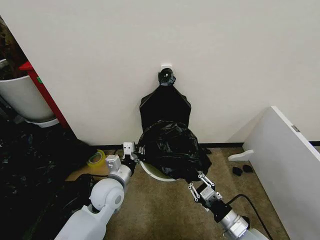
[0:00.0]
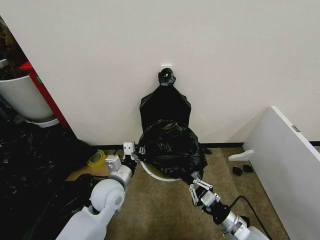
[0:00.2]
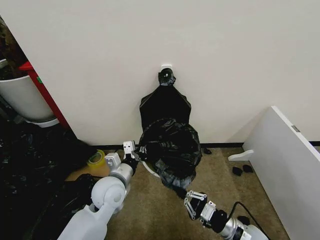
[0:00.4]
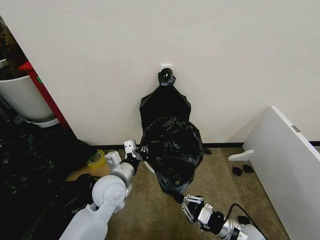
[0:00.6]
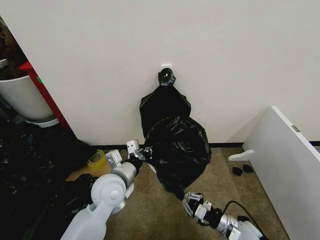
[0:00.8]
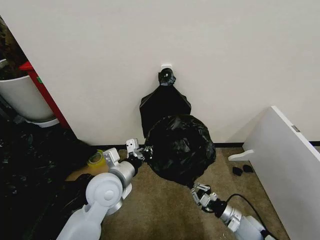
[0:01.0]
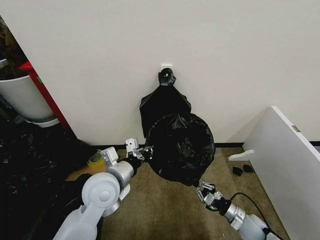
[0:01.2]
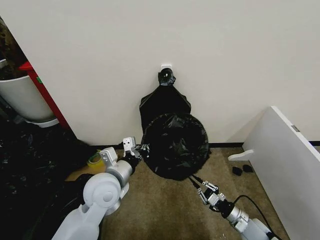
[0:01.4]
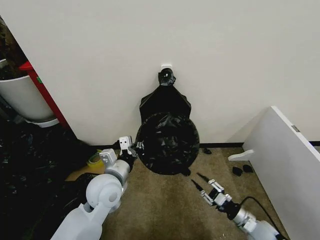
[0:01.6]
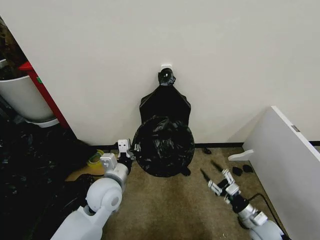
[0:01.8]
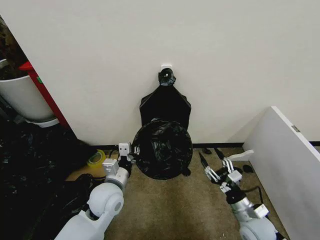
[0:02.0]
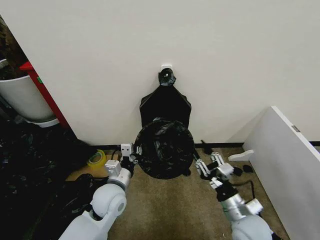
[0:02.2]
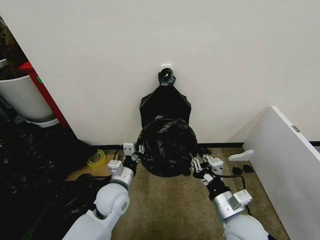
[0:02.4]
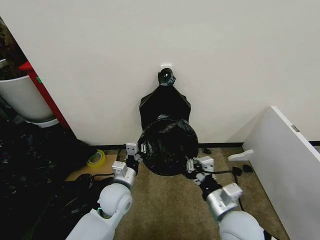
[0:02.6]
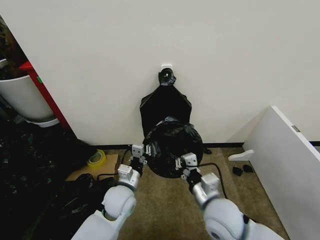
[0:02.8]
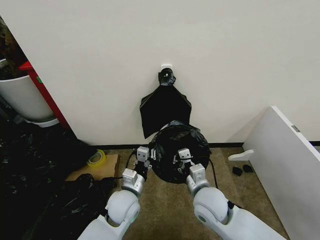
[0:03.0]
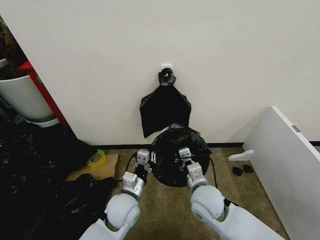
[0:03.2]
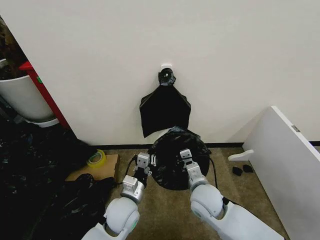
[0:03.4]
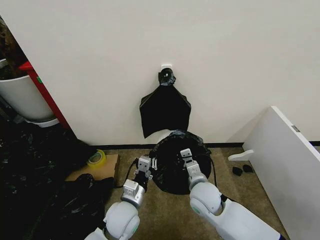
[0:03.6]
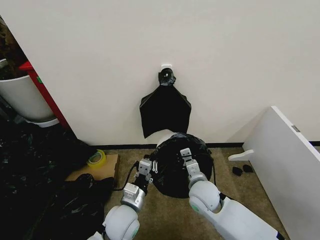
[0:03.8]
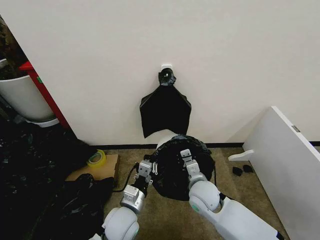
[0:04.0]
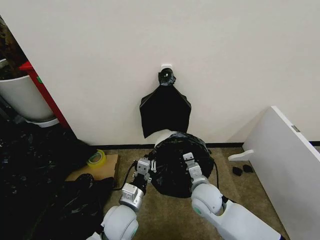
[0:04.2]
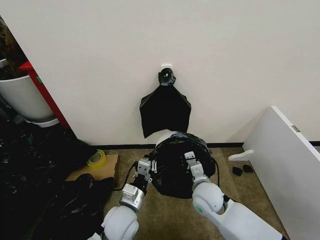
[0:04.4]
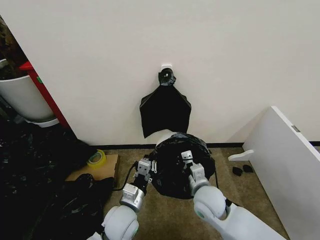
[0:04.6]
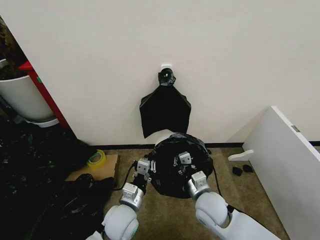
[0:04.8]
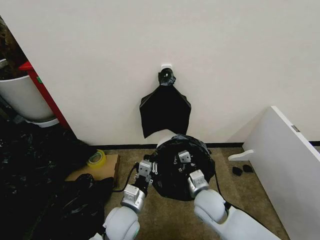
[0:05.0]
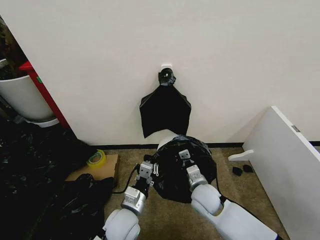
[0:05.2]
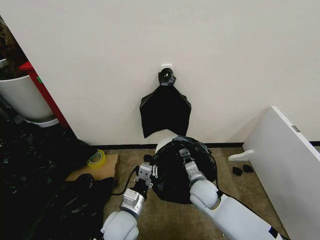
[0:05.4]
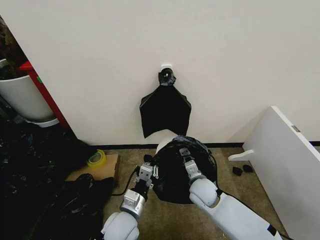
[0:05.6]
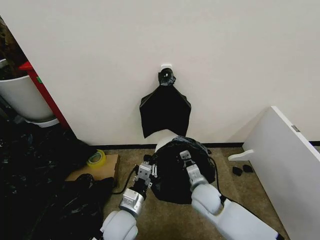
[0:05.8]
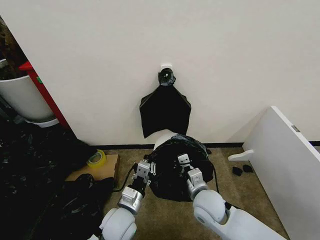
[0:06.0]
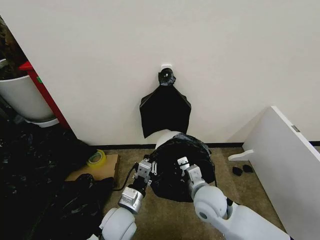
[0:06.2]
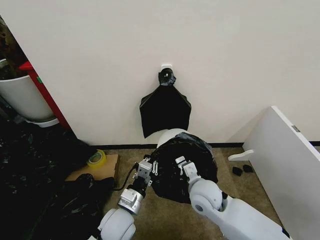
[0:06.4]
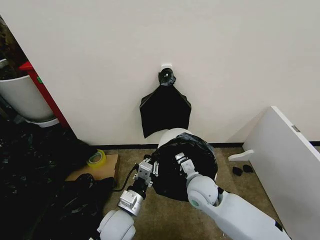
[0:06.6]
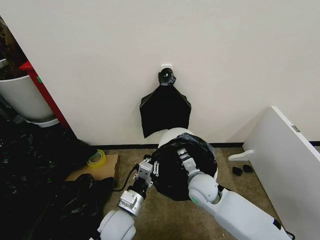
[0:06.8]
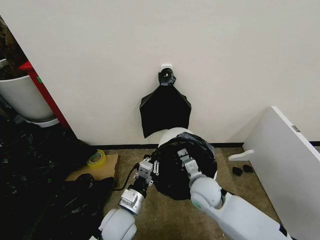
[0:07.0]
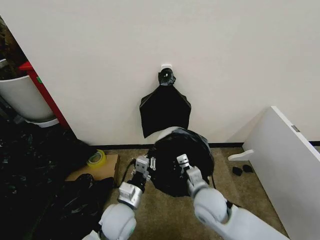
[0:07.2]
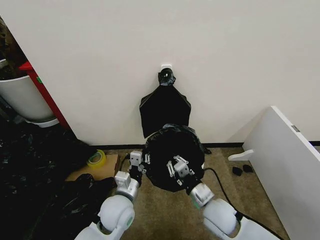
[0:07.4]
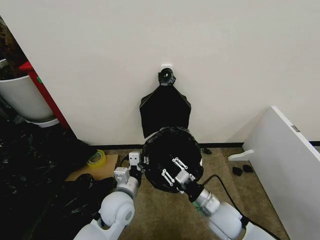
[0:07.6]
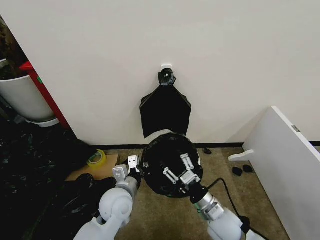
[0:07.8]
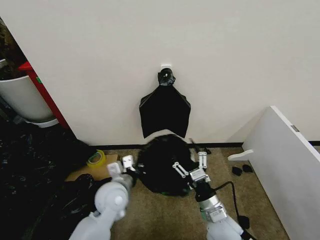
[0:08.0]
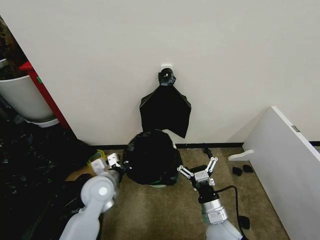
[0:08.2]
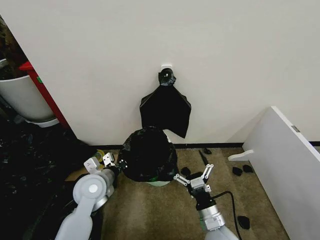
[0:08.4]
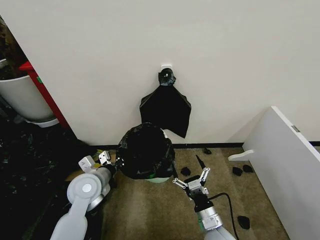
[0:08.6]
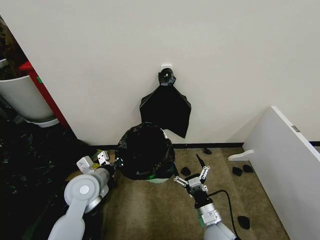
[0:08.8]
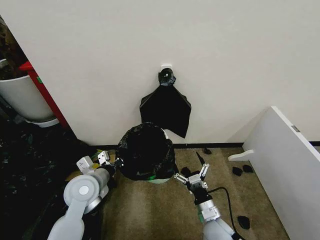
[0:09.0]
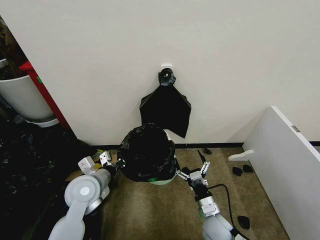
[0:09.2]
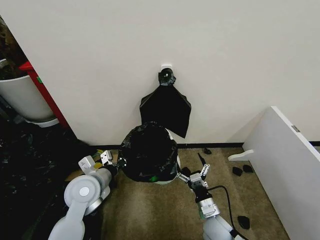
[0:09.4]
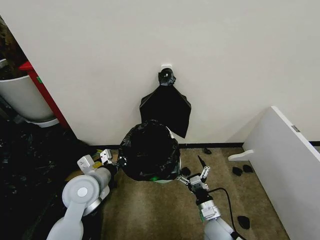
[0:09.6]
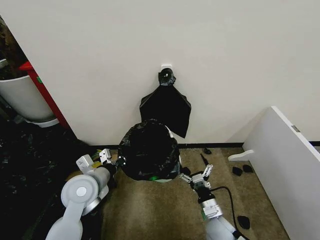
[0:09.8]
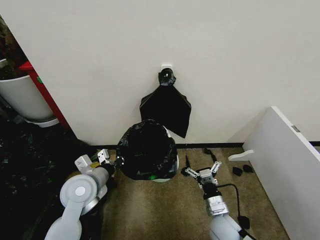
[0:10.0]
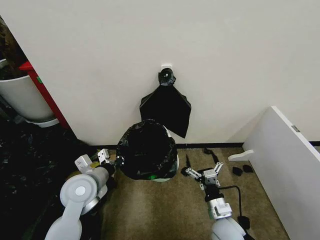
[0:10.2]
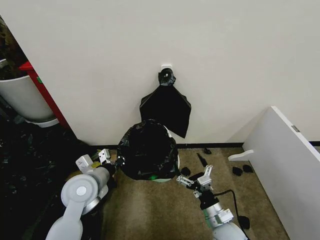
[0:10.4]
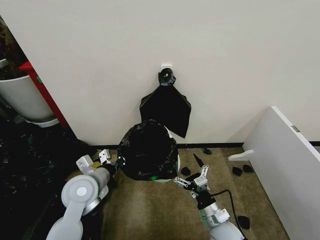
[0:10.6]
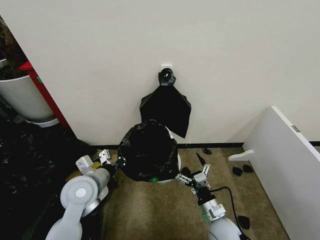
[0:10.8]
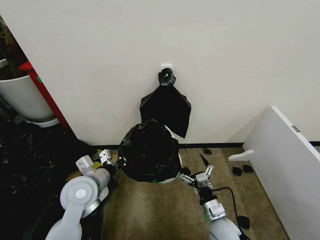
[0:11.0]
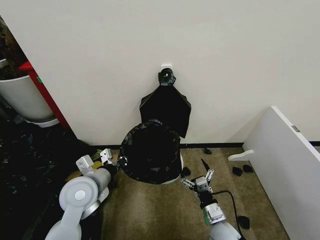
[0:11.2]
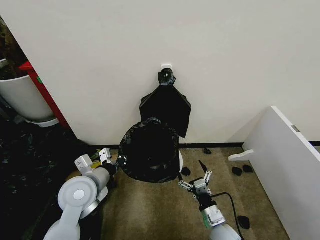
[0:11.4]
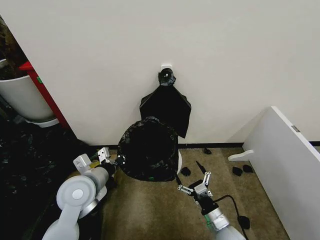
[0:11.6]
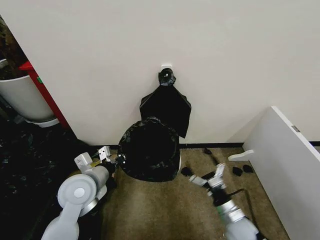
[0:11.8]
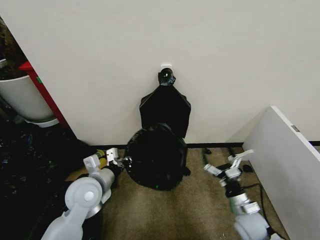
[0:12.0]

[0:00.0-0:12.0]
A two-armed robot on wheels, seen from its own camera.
Task of the whole recording: Place the garbage bag over the trash bin.
0:00.0 to 0:01.6: The right gripper is displaced downward, to the right and forward by some 15 cm.
0:01.6 to 0:03.0: The right gripper heads to the left and upward, covering roughly 30 cm. The left gripper goes roughly 10 cm downward.
0:03.0 to 0:04.4: The right gripper ends up about 5 cm from where it was, while the left gripper travels backward by approximately 5 cm.
0:06.0 to 0:07.6: The left gripper ends up roughly 5 cm from where it was, while the right gripper changes place by roughly 5 cm.
0:07.6 to 0:09.0: The right gripper moves downward, about 5 cm, and opens its fingers. Meanwhile the left gripper heads to the left, covering roughly 10 cm.
0:09.0 to 0:10.4: The grippers make only small movements.
0:10.4 to 0:12.0: The right gripper is displaced to the right by roughly 10 cm.

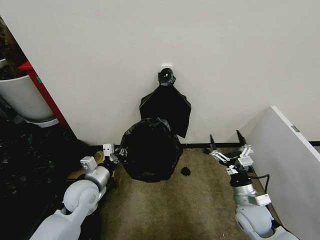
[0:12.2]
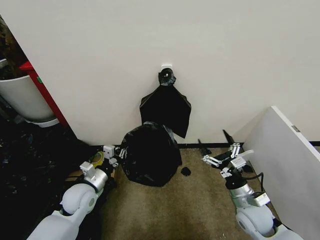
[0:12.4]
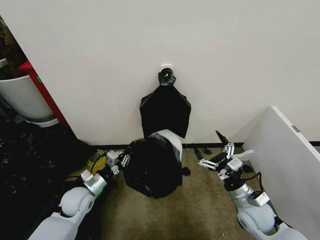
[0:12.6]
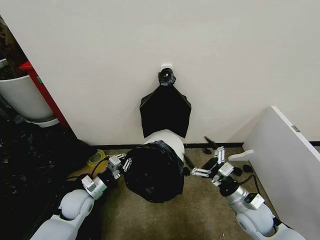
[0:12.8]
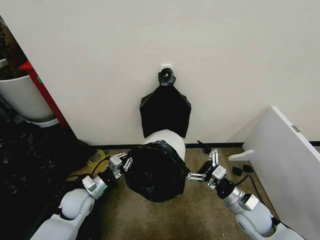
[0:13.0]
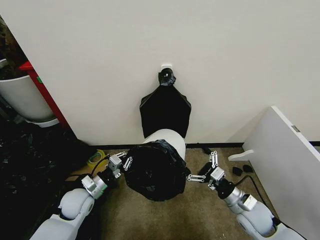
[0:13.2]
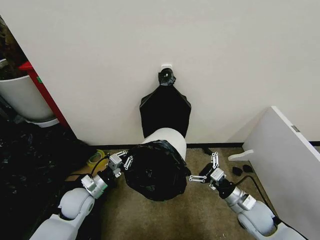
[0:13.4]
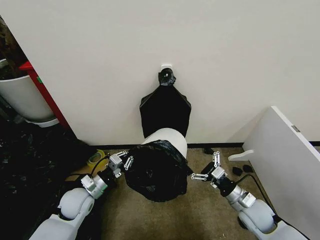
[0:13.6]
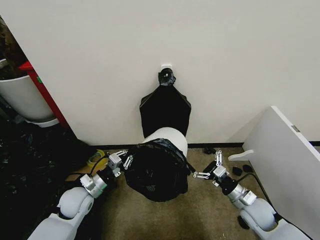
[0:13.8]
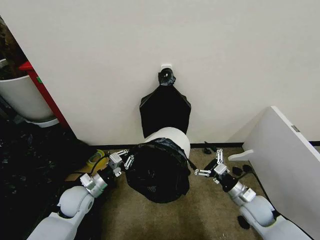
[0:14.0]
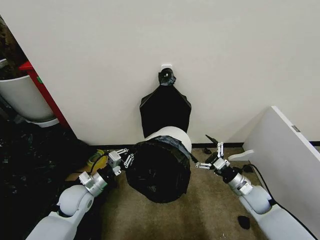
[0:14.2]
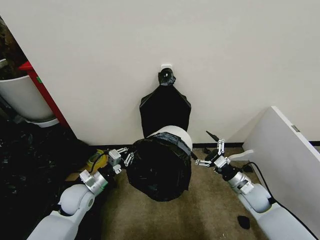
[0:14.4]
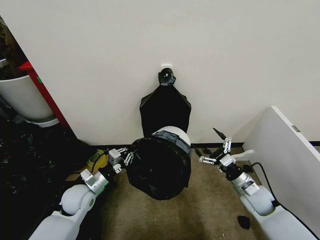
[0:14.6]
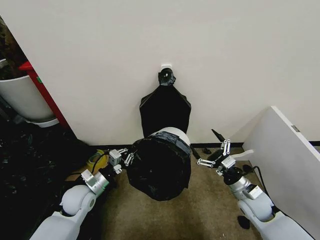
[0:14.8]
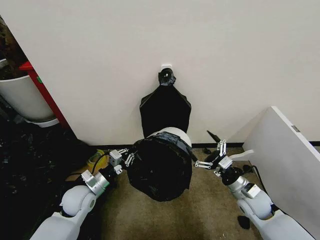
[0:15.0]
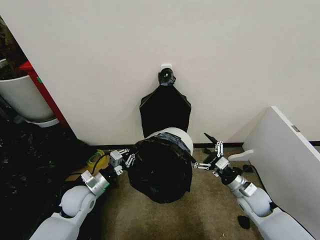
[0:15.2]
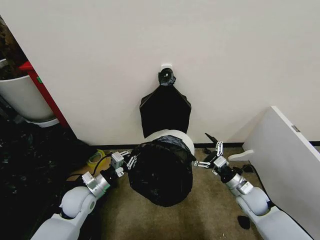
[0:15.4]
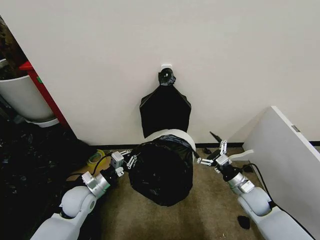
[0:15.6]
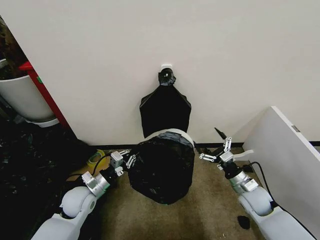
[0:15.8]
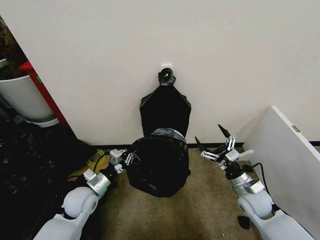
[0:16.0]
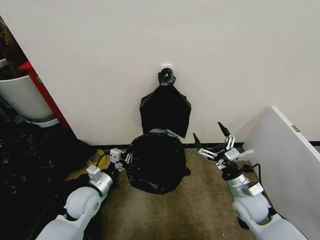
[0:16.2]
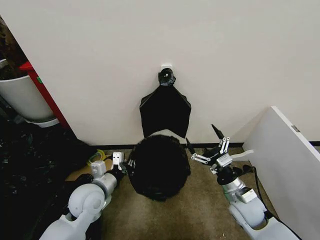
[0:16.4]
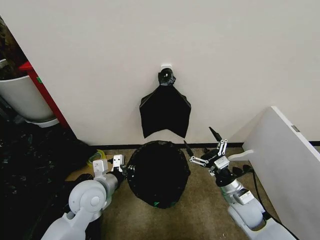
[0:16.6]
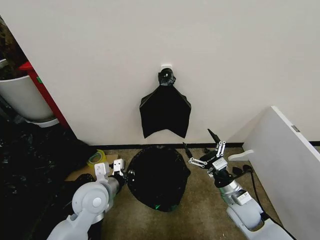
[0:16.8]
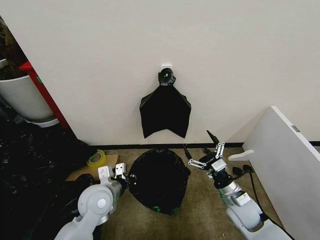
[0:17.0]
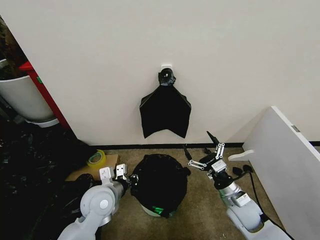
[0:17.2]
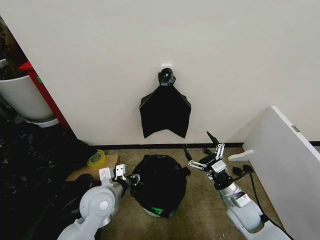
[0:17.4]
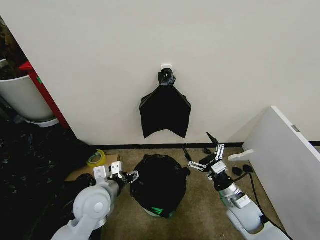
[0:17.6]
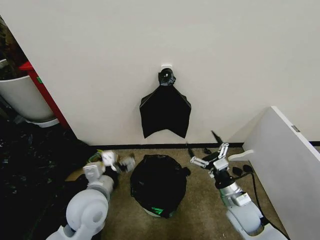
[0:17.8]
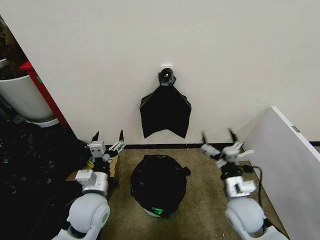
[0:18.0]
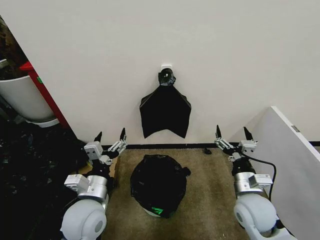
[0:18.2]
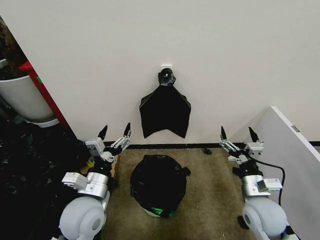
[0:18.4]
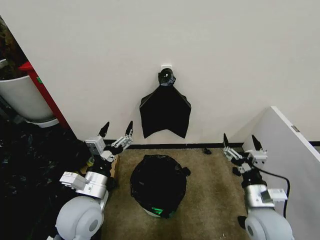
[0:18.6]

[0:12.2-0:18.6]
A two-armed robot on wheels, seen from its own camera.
Task of the whole recording: Place the garbage bag over the trash bin.
0:12.2 to 0:13.8: The left gripper moves downward, approximately 5 cm.
0:13.8 to 0:15.4: The grippers make only small movements.
0:15.4 to 0:17.0: The left gripper goes about 10 cm to the right and upward; the right gripper is displaced to the left by some 5 cm.
0:17.0 to 0:18.6: The left gripper shifts some 10 cm backward and upward, and opens up. The right gripper moves upward and backward, roughly 10 cm.

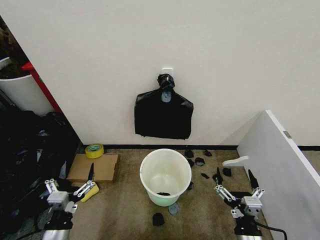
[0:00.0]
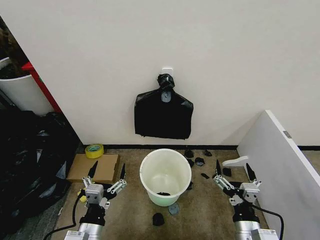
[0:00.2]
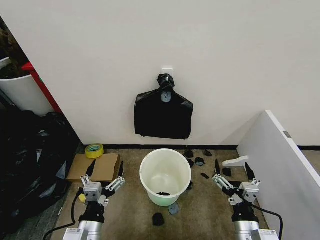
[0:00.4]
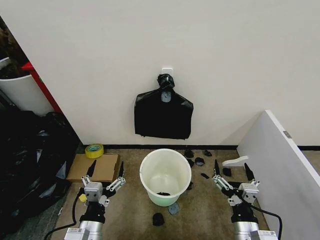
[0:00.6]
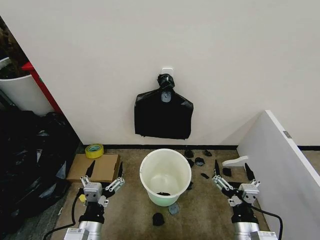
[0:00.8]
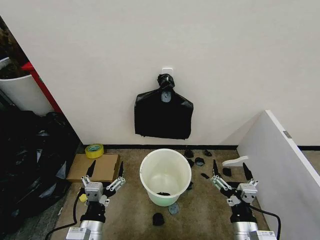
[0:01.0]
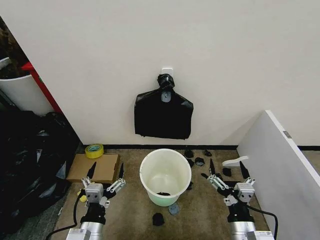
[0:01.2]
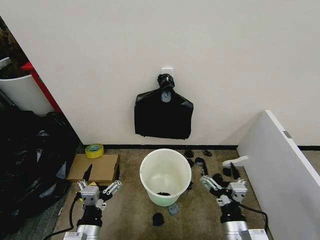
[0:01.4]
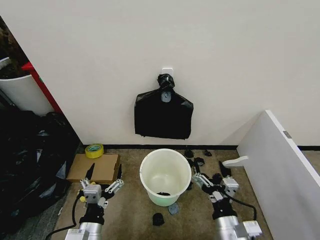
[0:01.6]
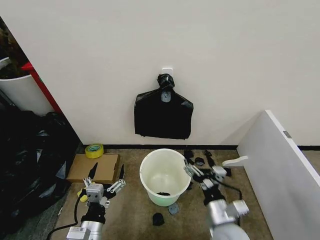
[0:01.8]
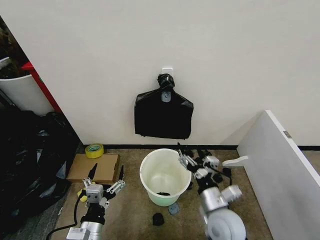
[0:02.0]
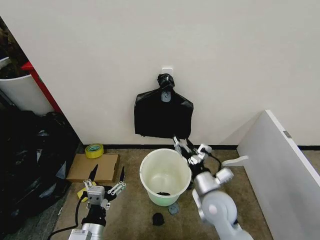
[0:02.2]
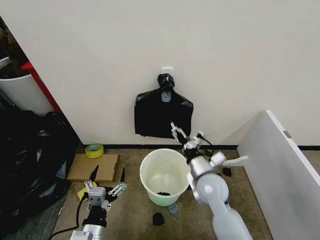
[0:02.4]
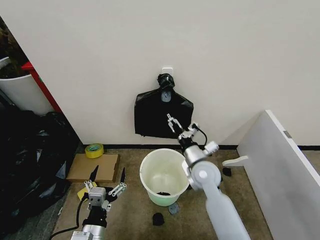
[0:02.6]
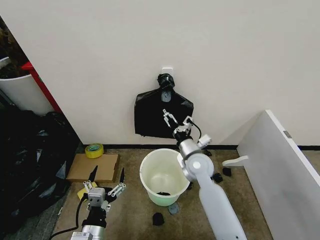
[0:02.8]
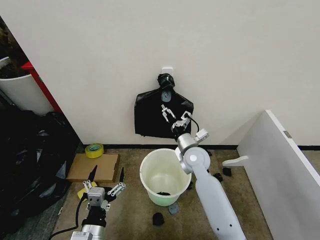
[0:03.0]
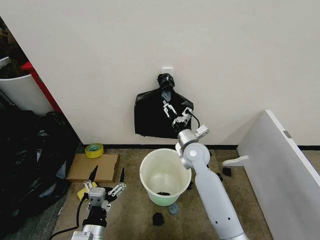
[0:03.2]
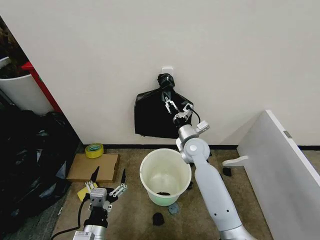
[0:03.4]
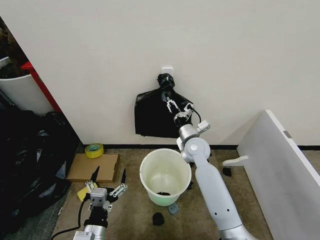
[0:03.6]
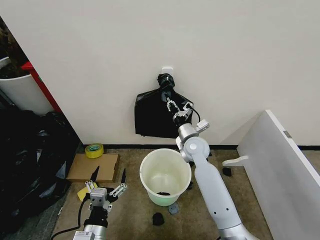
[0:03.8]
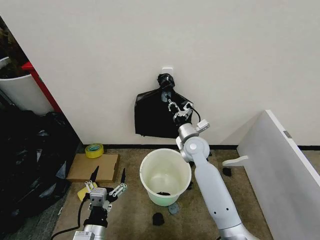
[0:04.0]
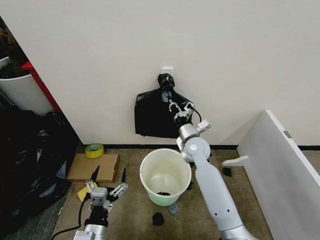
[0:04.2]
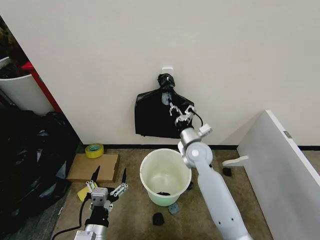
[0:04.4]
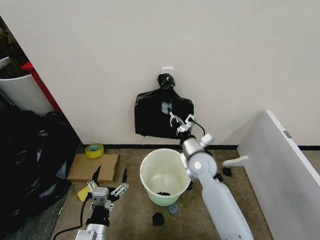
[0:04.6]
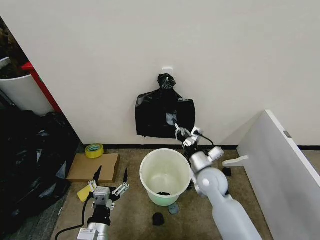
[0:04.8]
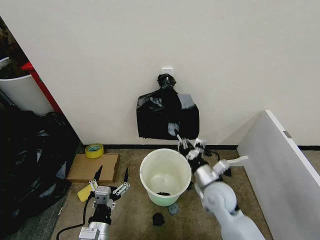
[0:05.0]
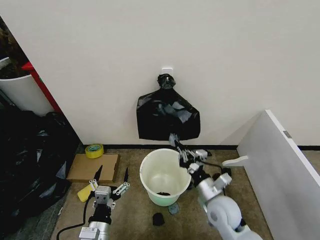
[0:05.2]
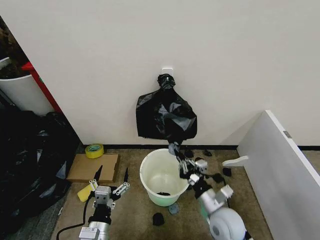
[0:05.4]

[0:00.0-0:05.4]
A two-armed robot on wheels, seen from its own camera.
Task of the whole recording: Place the garbage bag over the trash bin.
0:01.4 to 0:02.8: The right gripper is displaced forward by some 25 cm.
0:02.8 to 0:04.0: The right gripper shifts approximately 5 cm forward, and closes.
0:04.0 to 0:05.4: The right gripper is displaced backward by some 25 cm.
